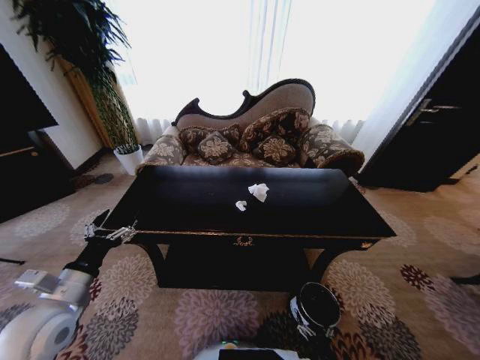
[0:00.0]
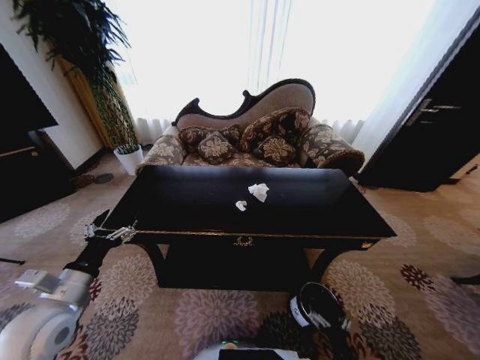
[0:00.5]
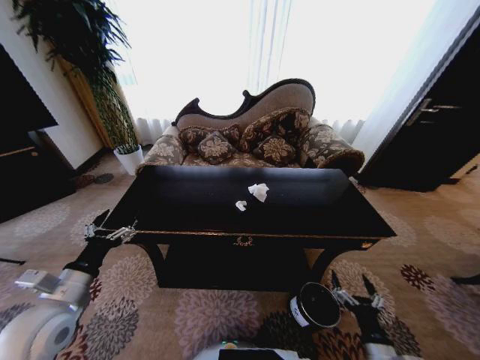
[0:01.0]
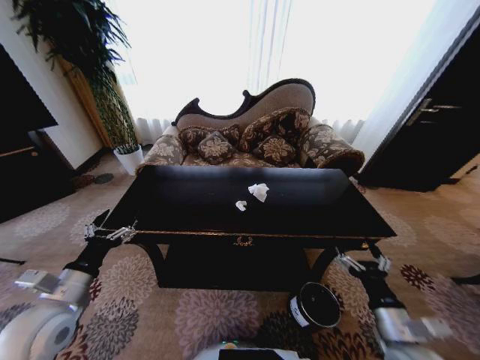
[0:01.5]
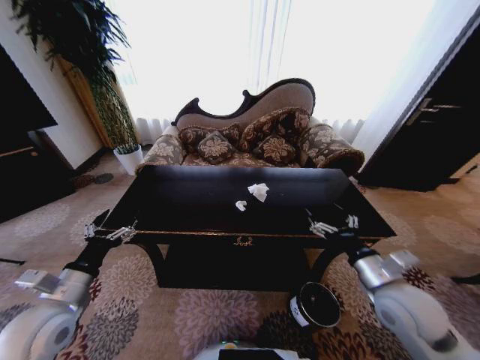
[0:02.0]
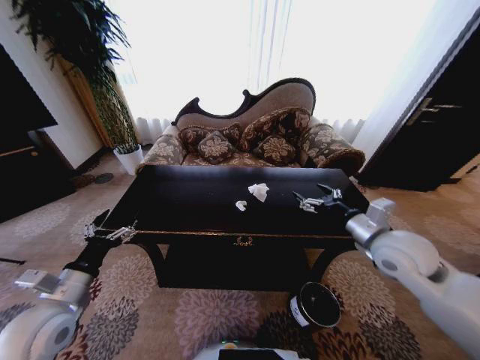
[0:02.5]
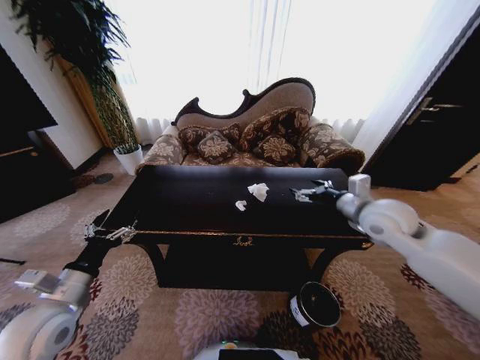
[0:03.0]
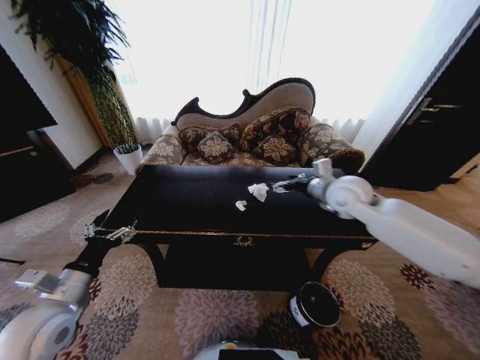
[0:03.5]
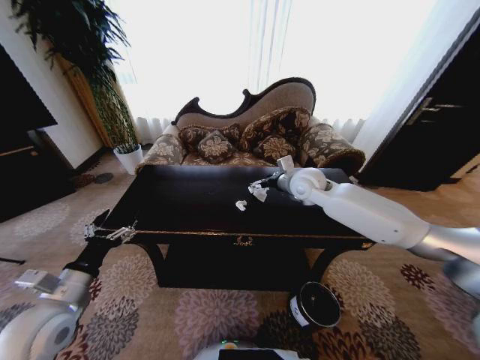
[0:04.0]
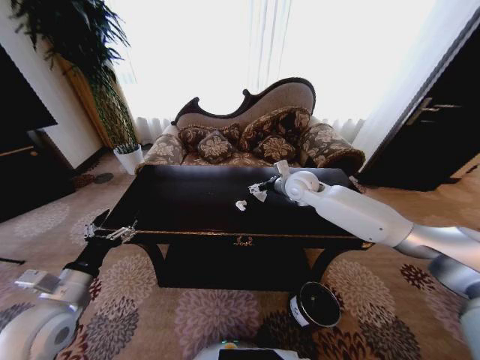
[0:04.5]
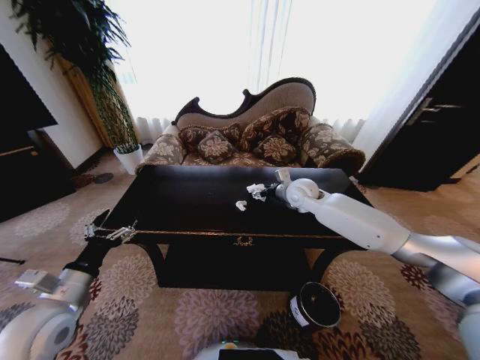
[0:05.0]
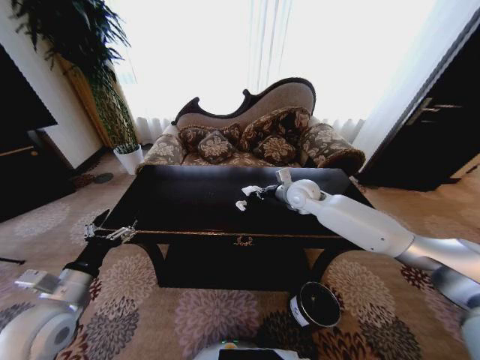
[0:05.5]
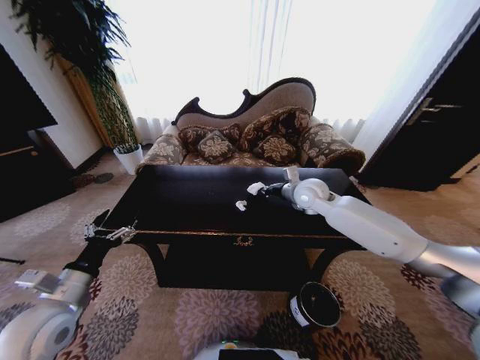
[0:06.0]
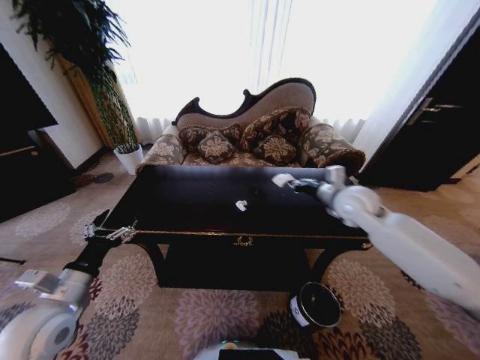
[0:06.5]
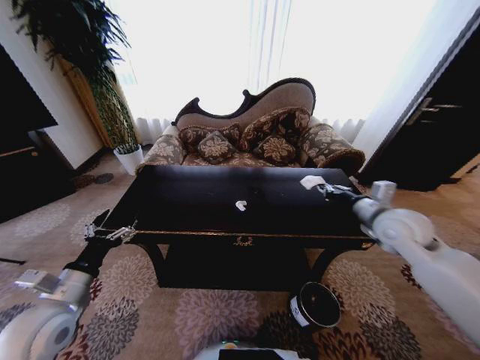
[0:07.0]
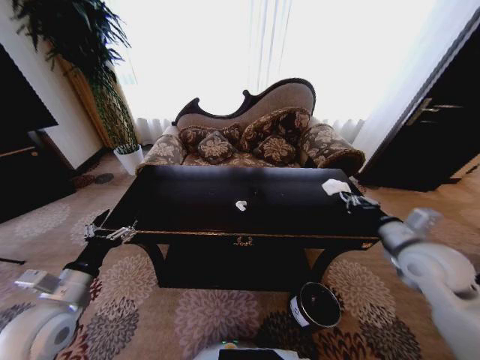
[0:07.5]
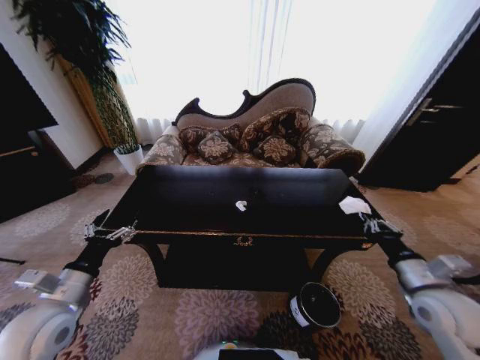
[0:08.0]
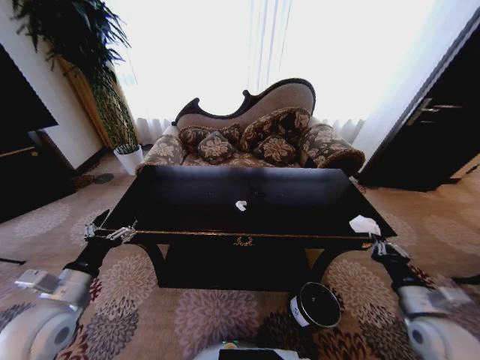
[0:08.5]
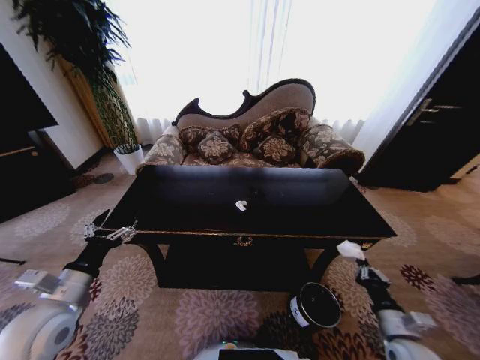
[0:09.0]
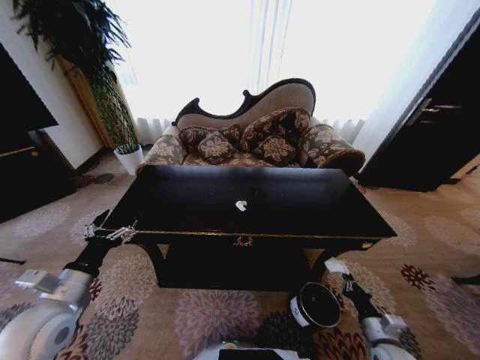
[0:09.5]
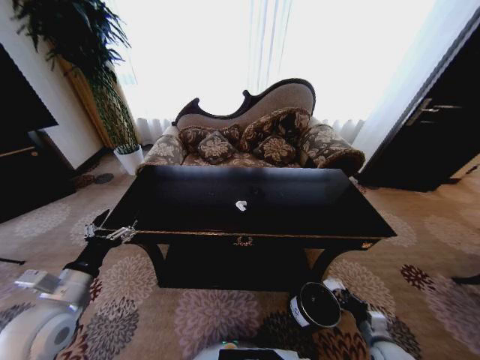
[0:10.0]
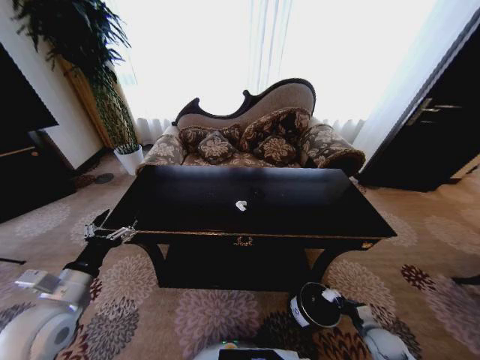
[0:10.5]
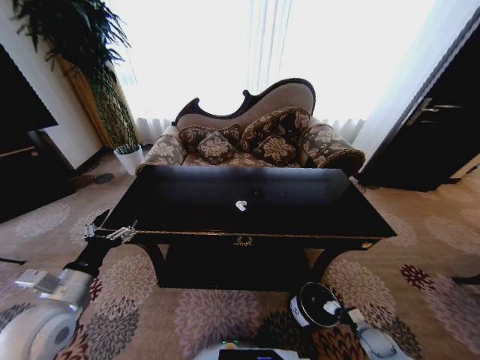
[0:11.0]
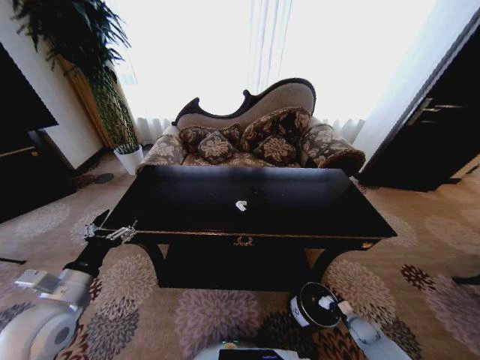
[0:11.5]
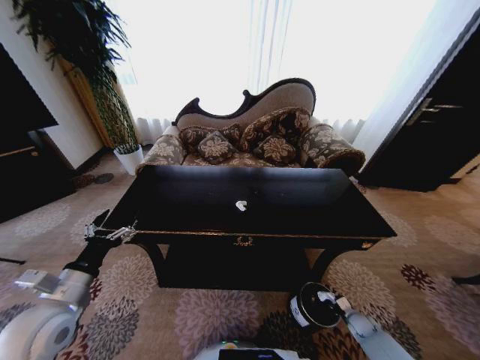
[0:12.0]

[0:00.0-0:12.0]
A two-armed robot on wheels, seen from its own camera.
Task of the whole recording: Move to the front of the table and place the trash on the table into the trash bin.
0:00.0 to 0:02.0: The right gripper shifts about 40 cm upward and forward.
0:02.0 to 0:04.0: The right gripper is displaced forward and to the left by about 30 cm.
0:04.0 to 0:06.0: The right gripper closes up.
0:06.0 to 0:08.0: The right gripper shifts about 35 cm backward and to the right.
0:08.0 to 0:10.0: The right gripper heads downward, covering approximately 25 cm.
0:10.0 to 0:12.0: The right gripper heads downward and forward, covering about 15 cm.

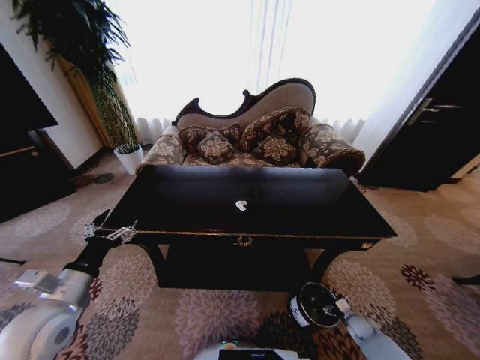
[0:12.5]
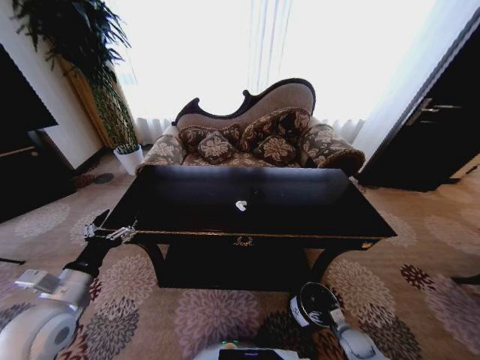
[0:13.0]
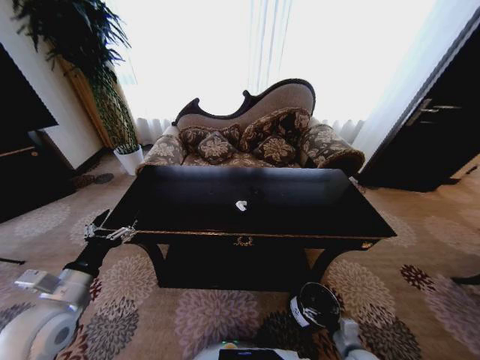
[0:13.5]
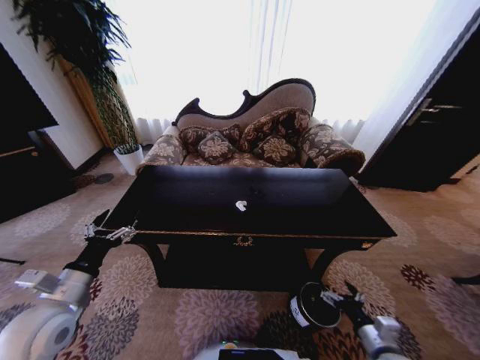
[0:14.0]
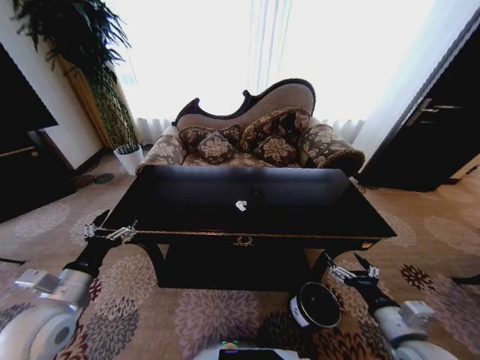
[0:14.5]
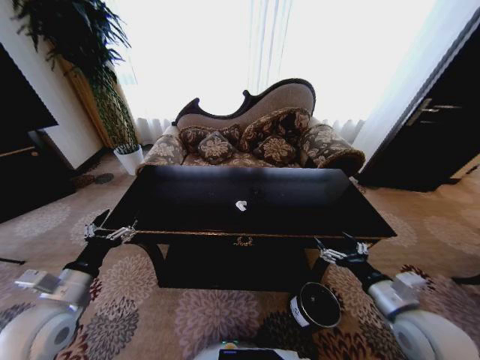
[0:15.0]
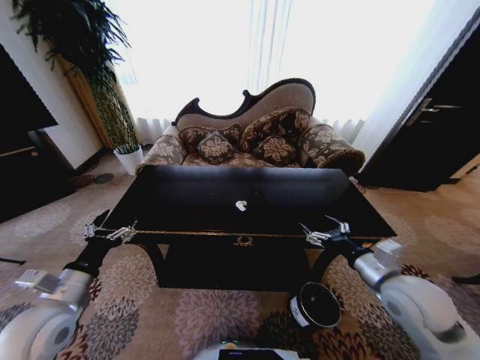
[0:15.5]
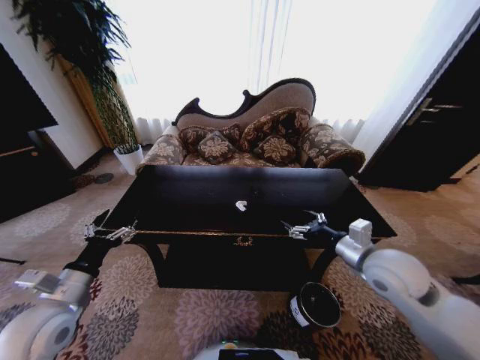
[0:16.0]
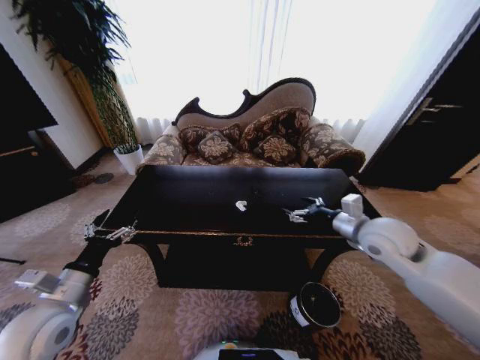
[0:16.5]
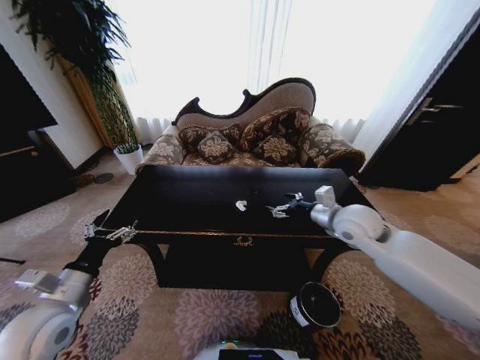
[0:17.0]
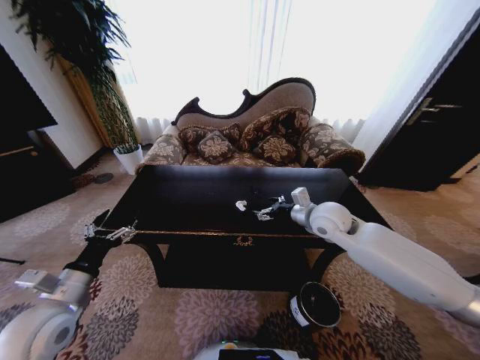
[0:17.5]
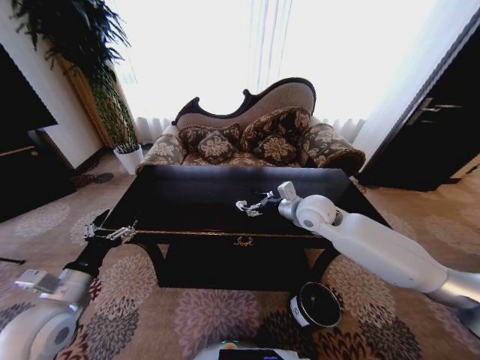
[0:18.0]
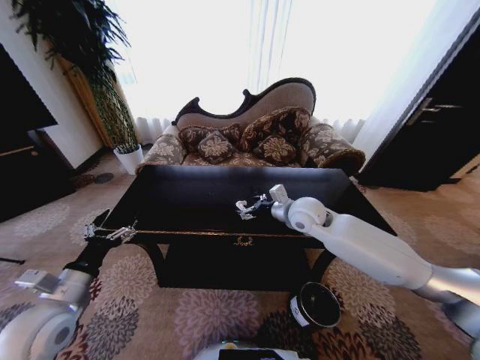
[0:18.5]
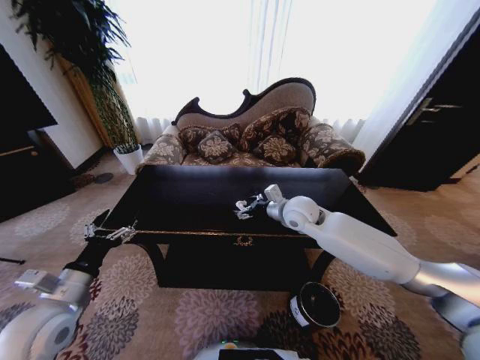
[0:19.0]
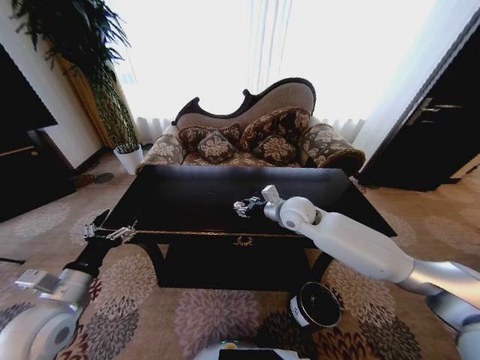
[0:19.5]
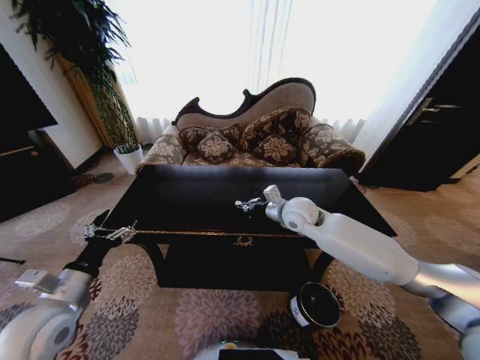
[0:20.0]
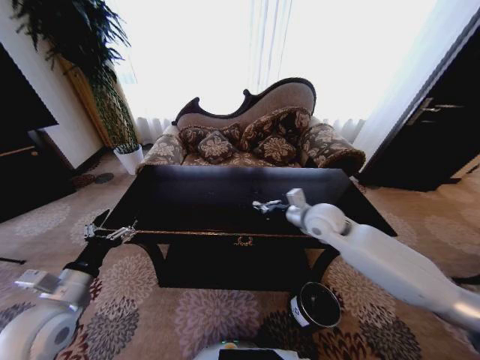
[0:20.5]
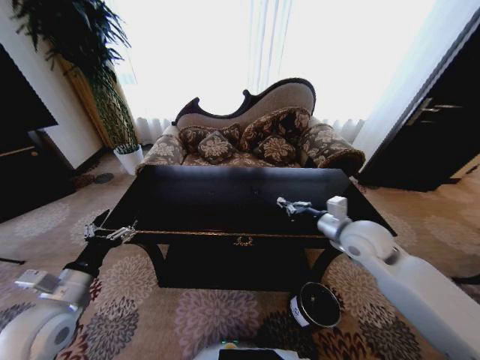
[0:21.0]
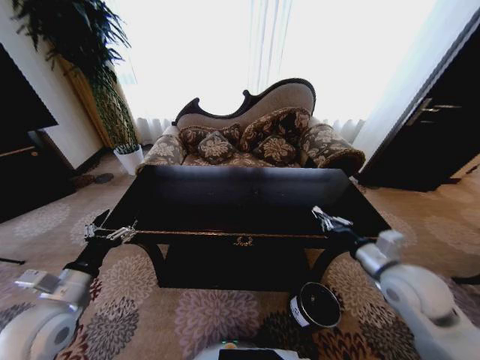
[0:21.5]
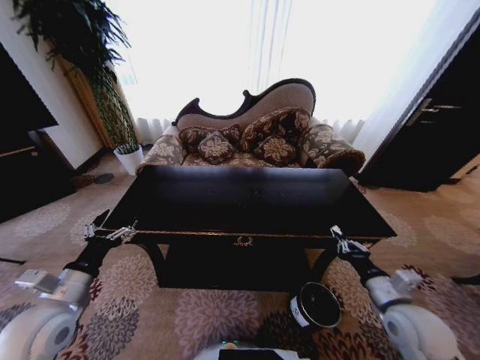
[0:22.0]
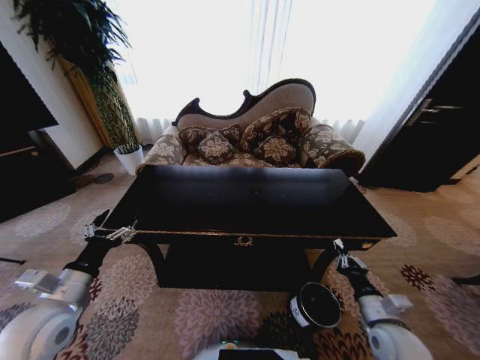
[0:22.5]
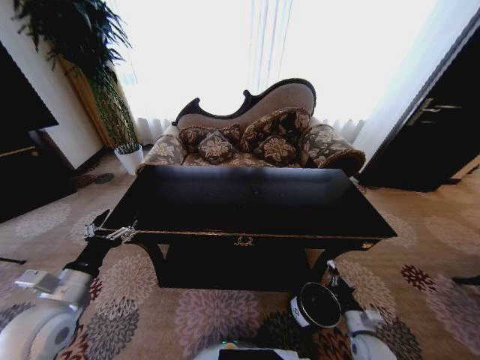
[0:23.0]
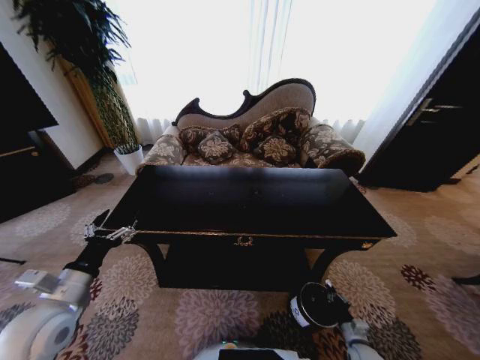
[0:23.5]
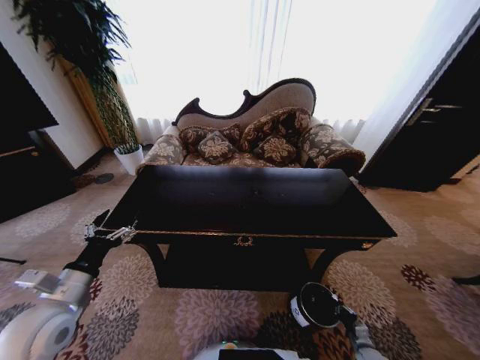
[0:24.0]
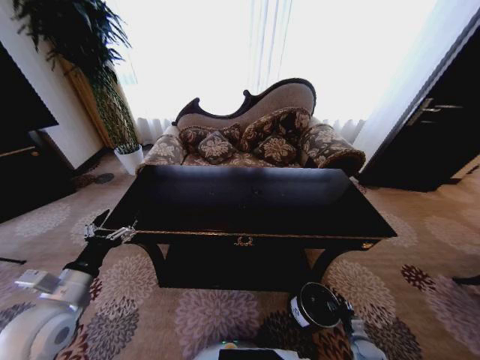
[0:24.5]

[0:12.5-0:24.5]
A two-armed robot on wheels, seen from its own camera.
Task of the whole recording: Move to the front of the table and place the trash on the table into the trash bin.
0:12.5 to 0:14.5: The right gripper moves upward, roughly 30 cm.
0:14.5 to 0:16.5: The right gripper is displaced forward and upward by some 25 cm.
0:16.5 to 0:18.5: The right gripper is displaced to the left and forward by some 15 cm.
0:18.5 to 0:20.5: The right gripper closes up.
0:20.5 to 0:22.5: The right gripper heads backward, downward and to the right, covering some 35 cm.
0:22.5 to 0:24.5: The right gripper goes about 30 cm downward, and opens up.

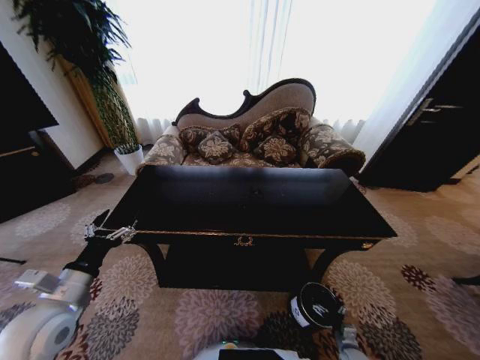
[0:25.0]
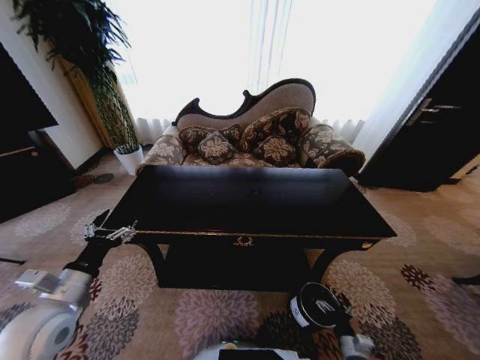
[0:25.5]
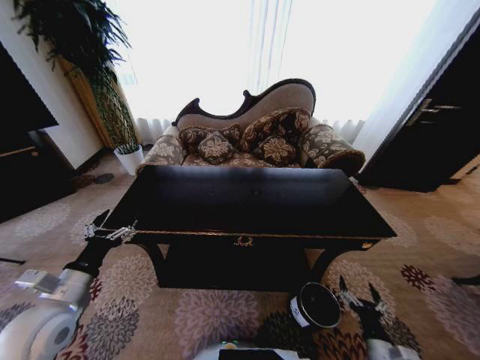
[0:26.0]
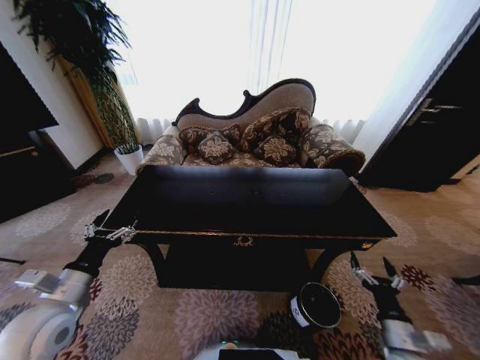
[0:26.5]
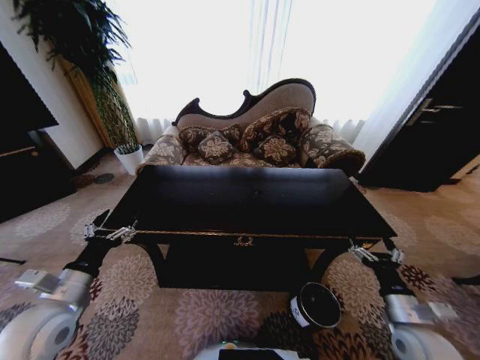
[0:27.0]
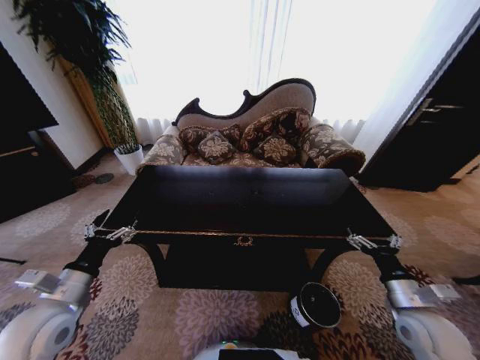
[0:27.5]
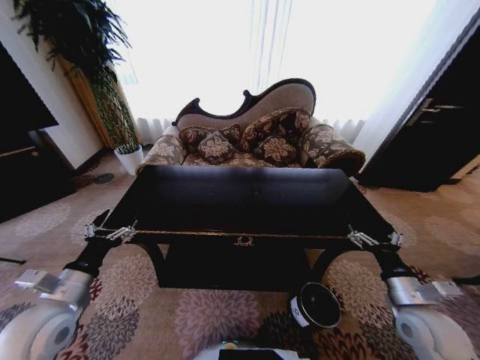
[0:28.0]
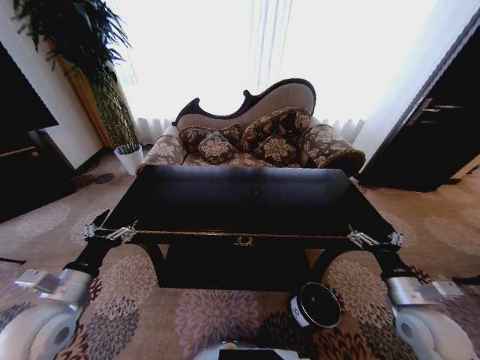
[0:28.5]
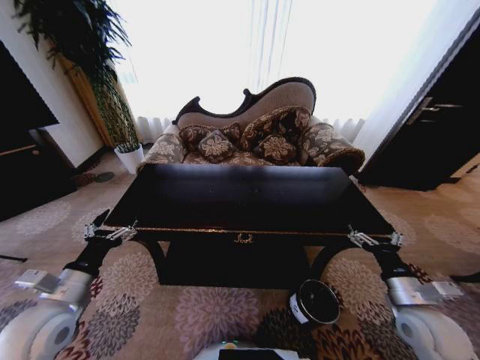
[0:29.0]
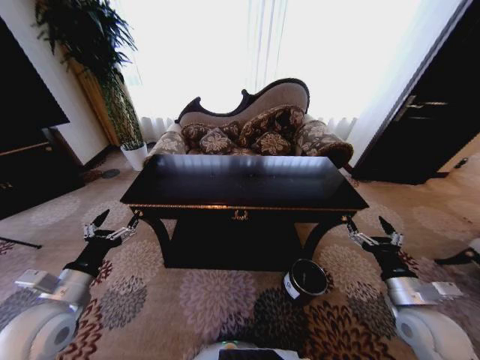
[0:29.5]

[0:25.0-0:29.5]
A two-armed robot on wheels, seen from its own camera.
Task of the whole recording: Move to the front of the table and place the trash on the table into the trash bin.
0:25.0 to 0:27.0: The right gripper shifts about 35 cm upward.
